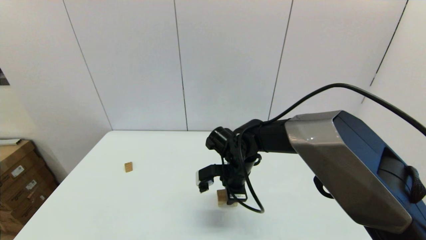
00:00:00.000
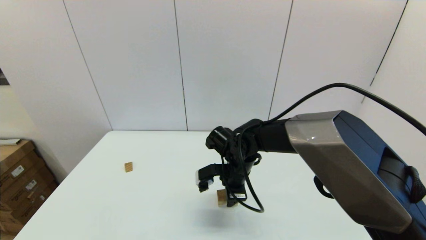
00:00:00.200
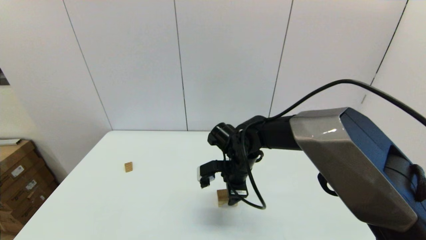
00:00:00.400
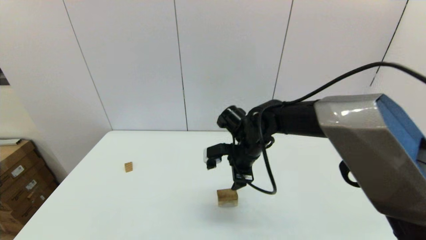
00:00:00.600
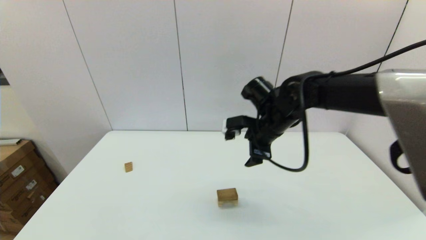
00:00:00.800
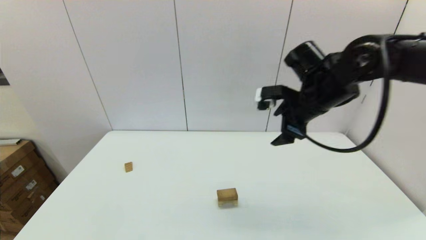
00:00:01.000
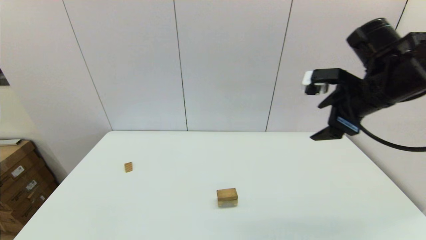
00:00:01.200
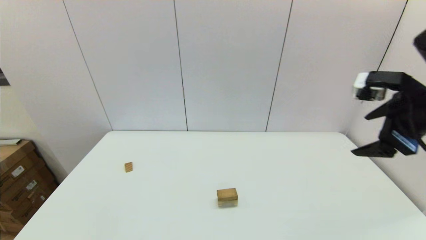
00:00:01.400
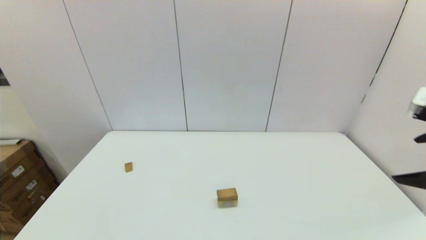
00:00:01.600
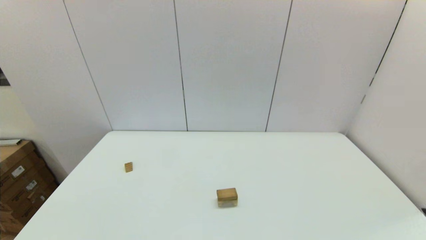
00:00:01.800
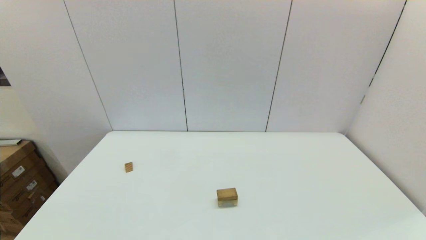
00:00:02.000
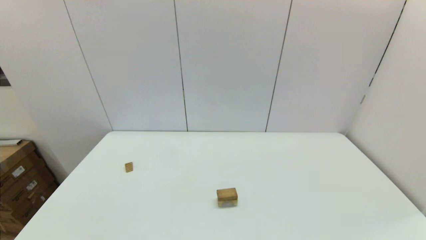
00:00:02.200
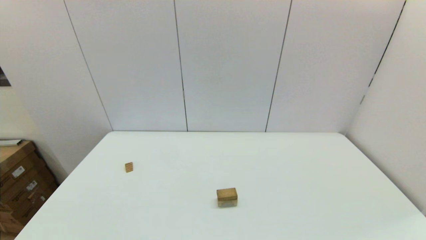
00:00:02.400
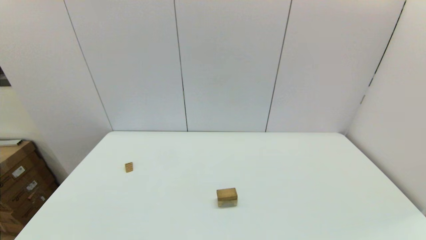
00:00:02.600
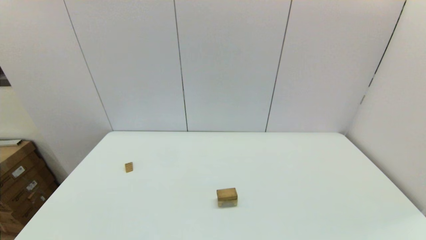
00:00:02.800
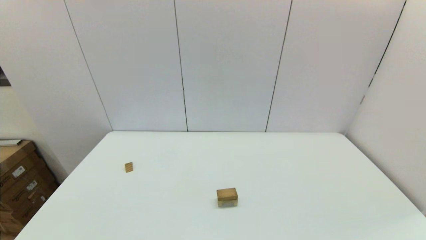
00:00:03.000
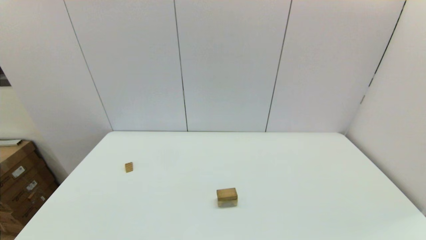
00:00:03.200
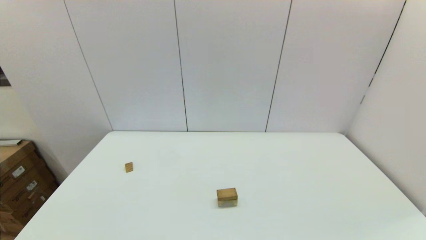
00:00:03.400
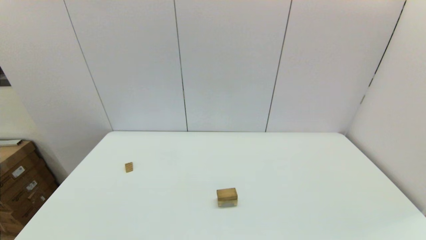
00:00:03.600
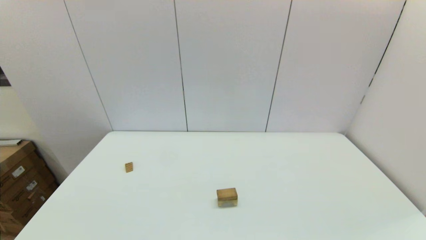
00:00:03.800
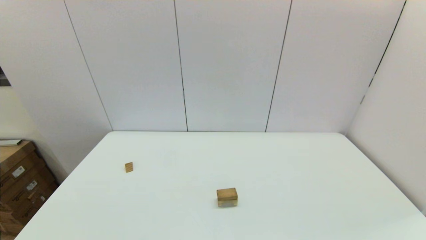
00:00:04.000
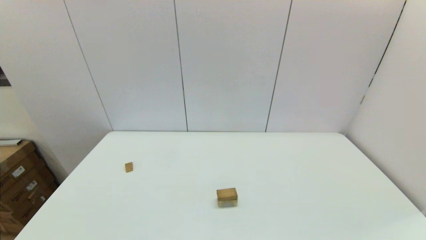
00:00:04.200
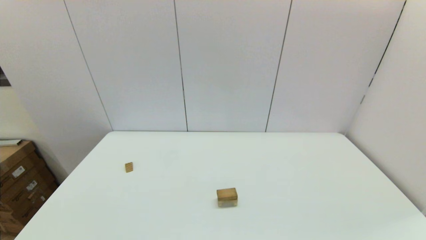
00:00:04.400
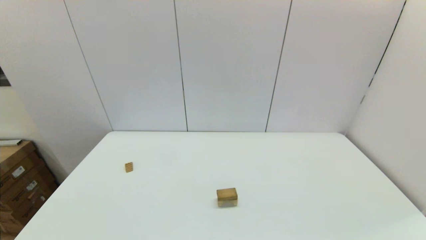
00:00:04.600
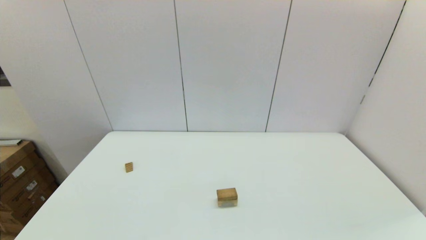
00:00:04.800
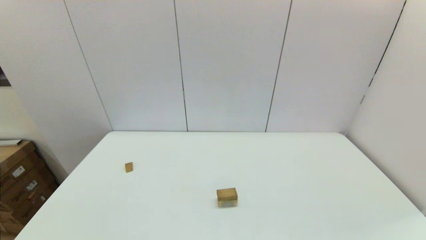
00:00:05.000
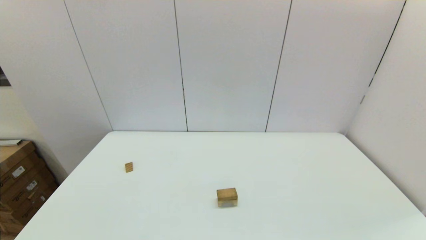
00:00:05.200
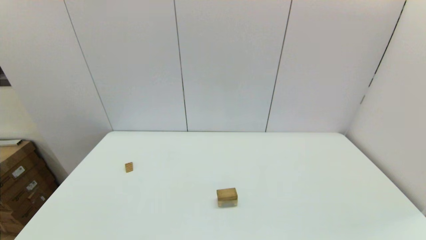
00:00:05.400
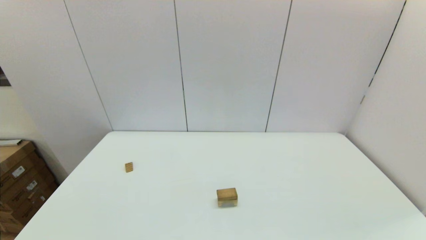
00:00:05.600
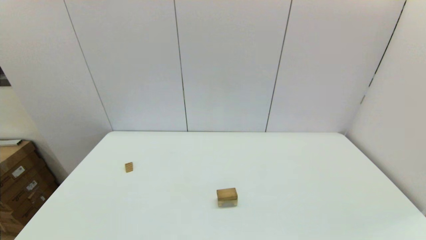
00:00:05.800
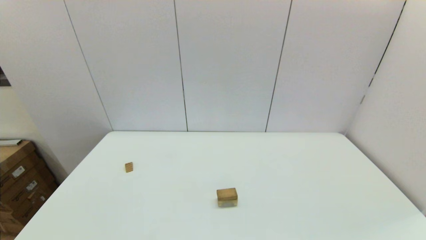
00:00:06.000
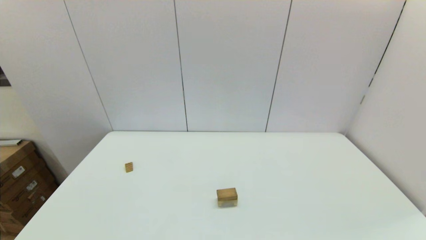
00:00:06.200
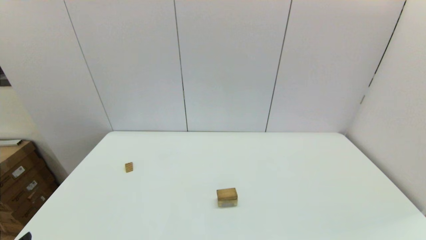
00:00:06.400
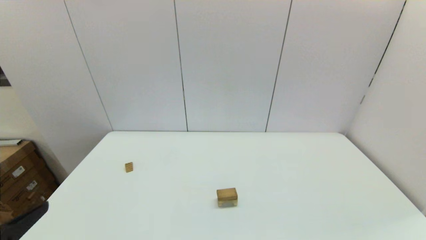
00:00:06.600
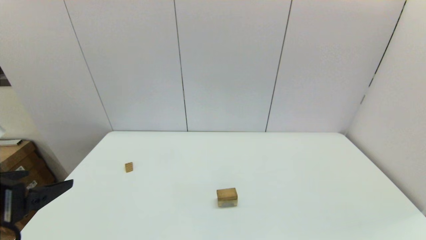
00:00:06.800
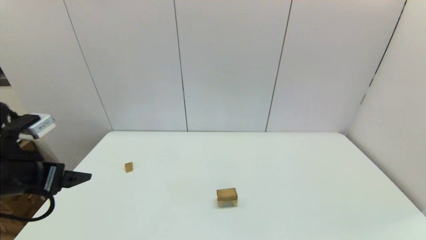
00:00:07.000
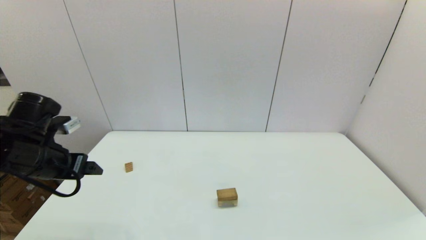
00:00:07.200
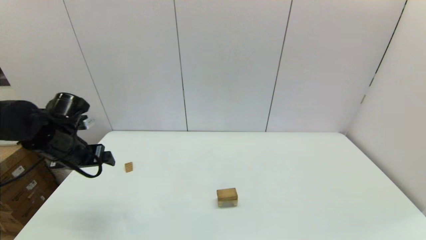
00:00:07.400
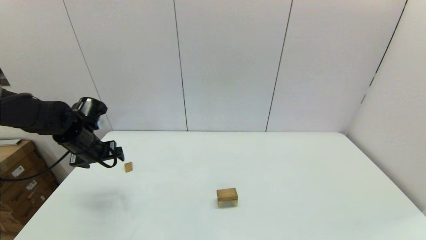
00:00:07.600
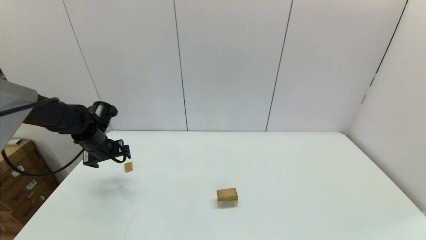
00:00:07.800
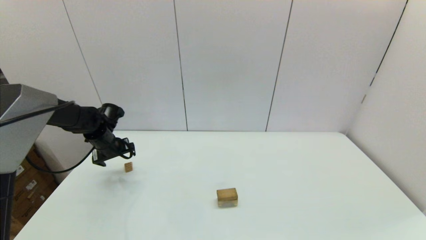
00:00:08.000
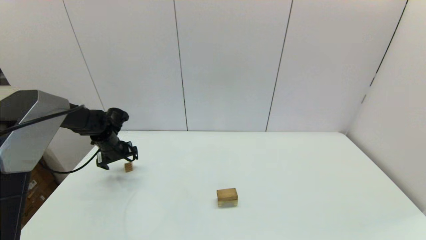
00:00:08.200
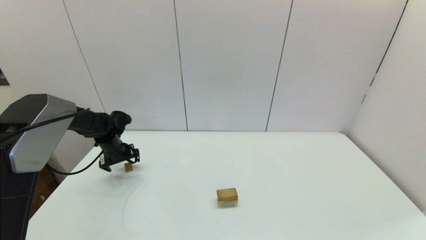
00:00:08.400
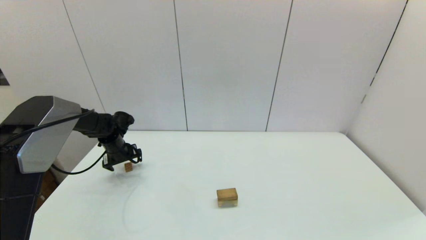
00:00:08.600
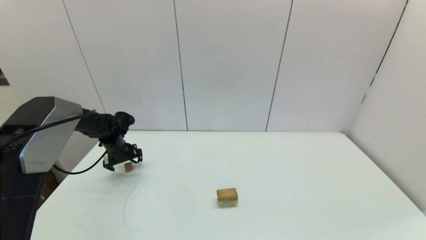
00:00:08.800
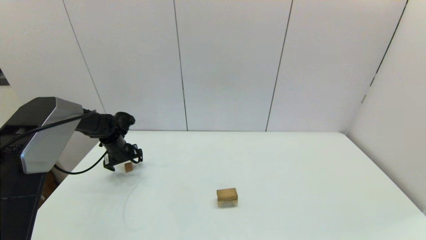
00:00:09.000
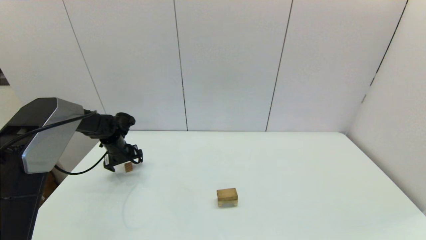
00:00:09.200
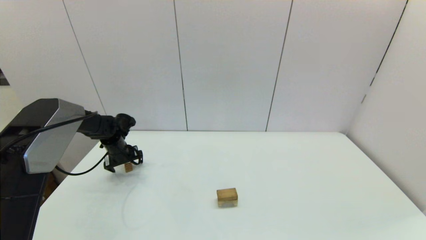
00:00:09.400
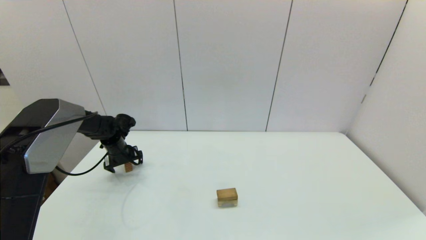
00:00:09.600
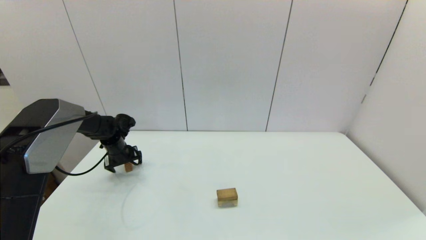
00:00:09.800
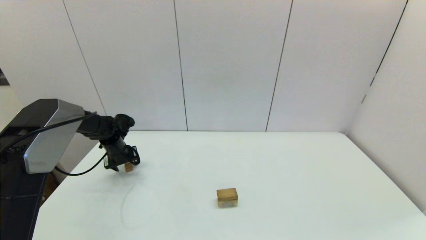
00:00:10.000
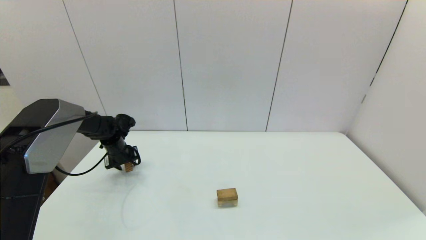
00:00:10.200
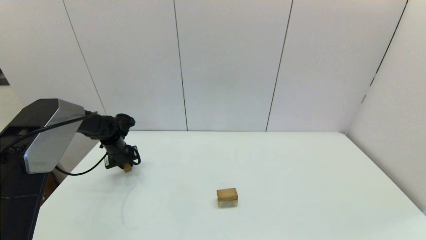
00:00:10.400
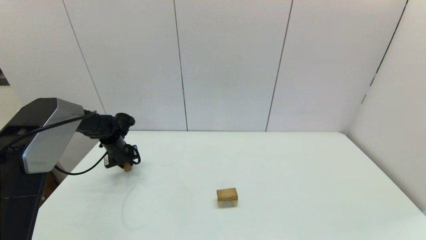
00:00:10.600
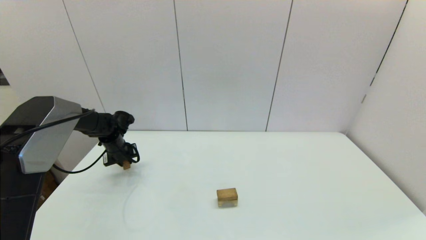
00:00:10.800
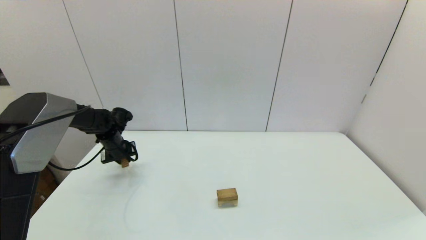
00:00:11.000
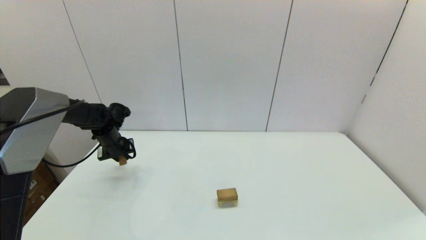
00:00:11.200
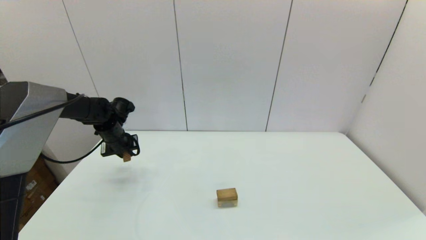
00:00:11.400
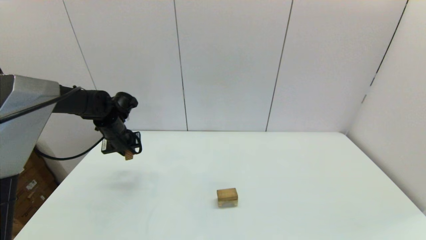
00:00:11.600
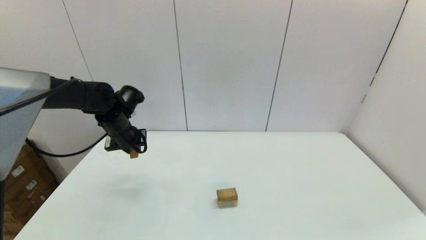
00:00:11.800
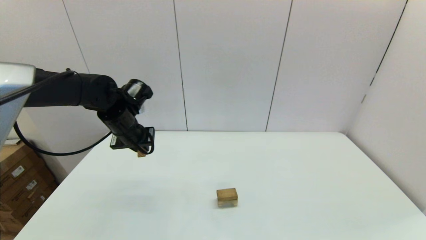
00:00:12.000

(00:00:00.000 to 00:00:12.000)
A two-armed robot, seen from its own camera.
Task of the whole recording: place the arched building blocks in the center of the table, set up the rectangular building blocks, and then set up the triangular building blocks.
Step, 00:00:00.400 - 00:00:10.400: Grasp the triangle-shaped block with the left gripper.
00:00:00.000 - 00:00:01.600: The right gripper goes some 40 cm to the right, upward and backward, and opens.
00:00:01.600 - 00:00:03.000: The right gripper shifts roughly 25 cm downward and backward.
00:00:06.000 - 00:00:07.600: The left gripper shifts some 40 cm forward.
00:00:07.600 - 00:00:09.000: The left gripper travels forward and downward by roughly 10 cm.
00:00:09.000 - 00:00:10.400: The left gripper closes its fingers.
00:00:10.400 - 00:00:12.000: The left gripper shifts about 20 cm upward, to the right and backward.

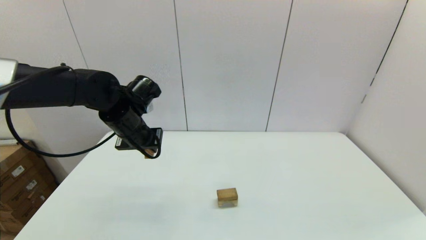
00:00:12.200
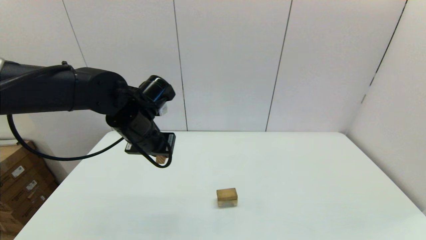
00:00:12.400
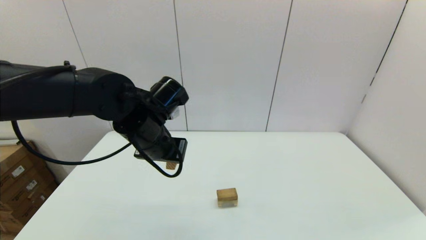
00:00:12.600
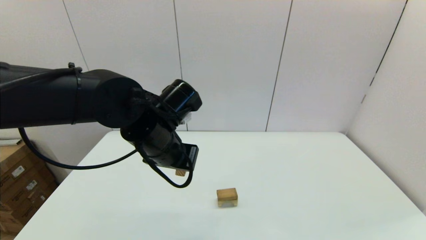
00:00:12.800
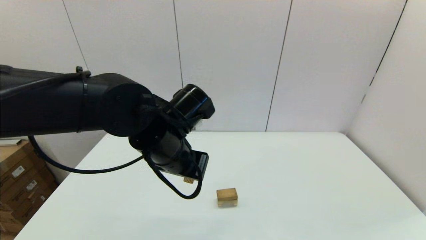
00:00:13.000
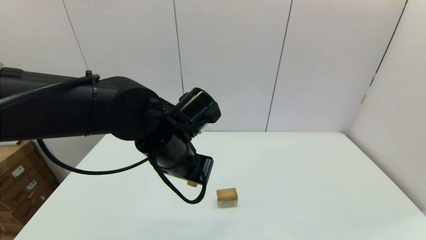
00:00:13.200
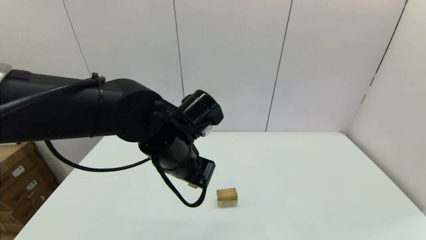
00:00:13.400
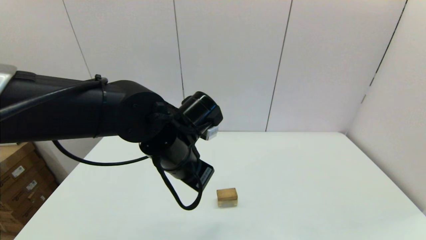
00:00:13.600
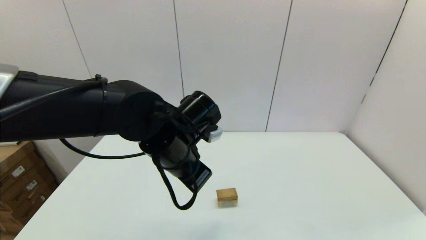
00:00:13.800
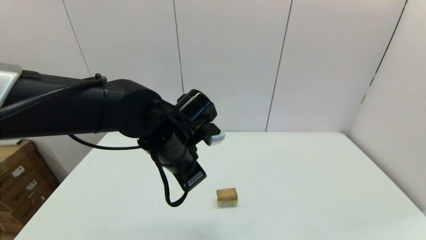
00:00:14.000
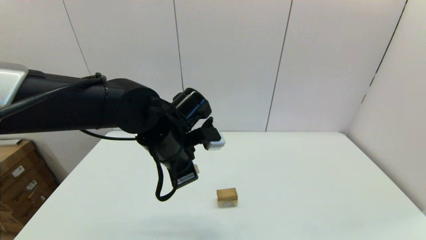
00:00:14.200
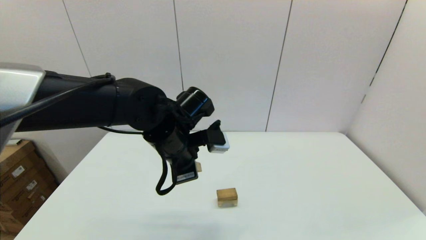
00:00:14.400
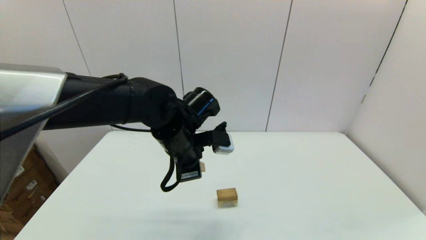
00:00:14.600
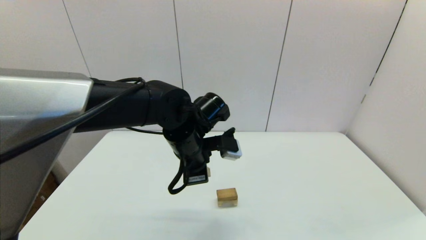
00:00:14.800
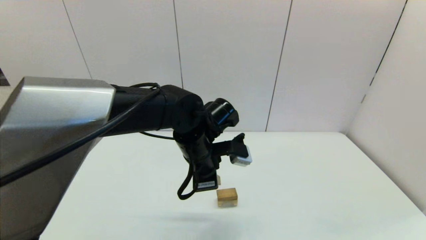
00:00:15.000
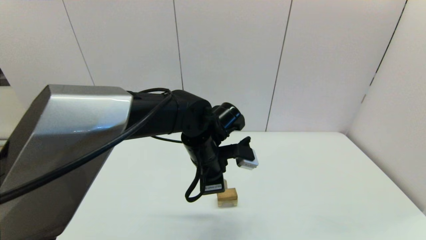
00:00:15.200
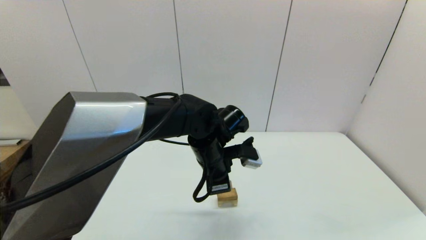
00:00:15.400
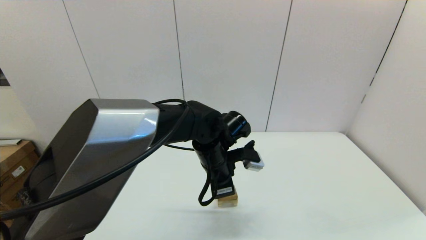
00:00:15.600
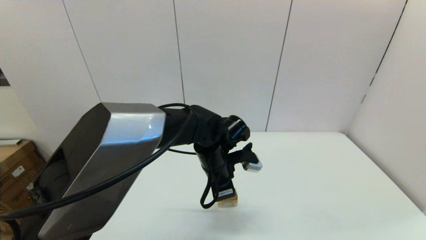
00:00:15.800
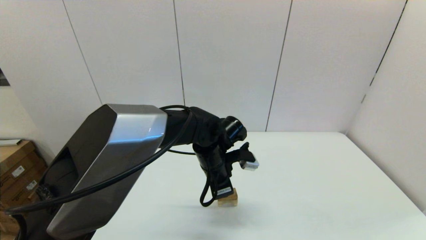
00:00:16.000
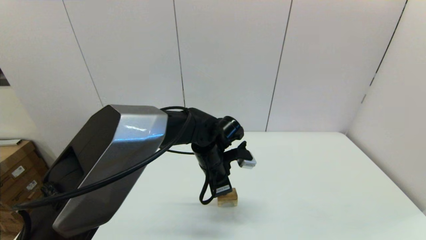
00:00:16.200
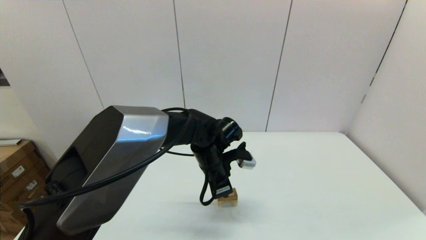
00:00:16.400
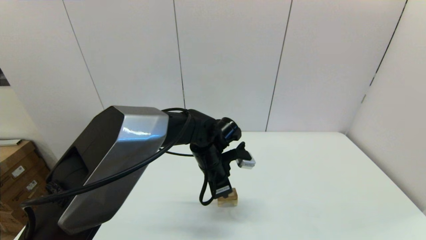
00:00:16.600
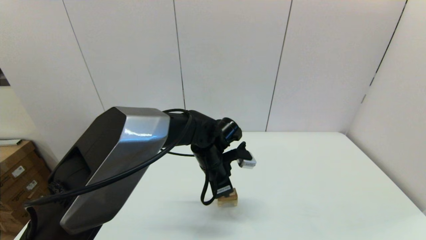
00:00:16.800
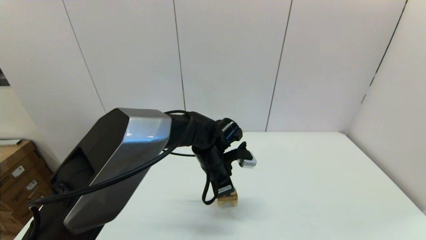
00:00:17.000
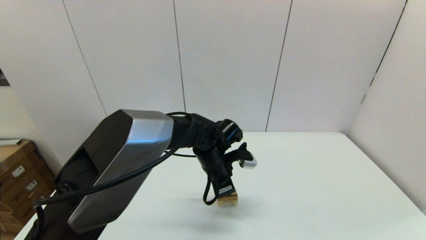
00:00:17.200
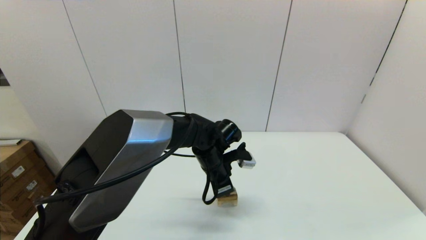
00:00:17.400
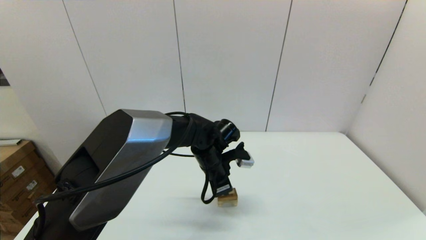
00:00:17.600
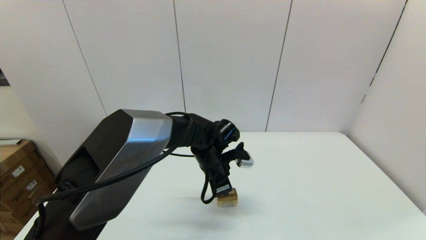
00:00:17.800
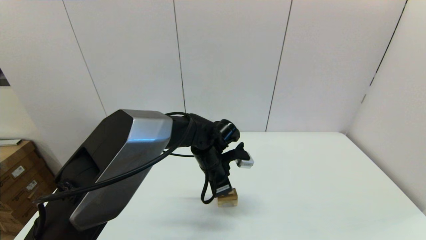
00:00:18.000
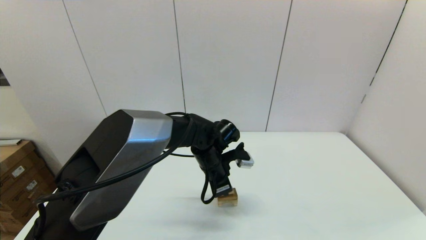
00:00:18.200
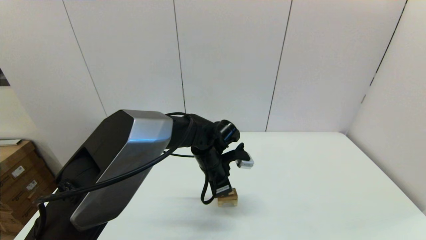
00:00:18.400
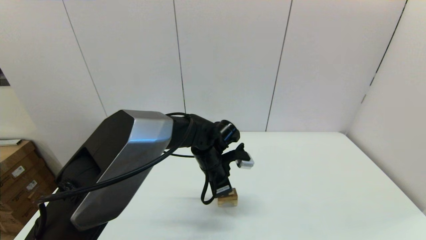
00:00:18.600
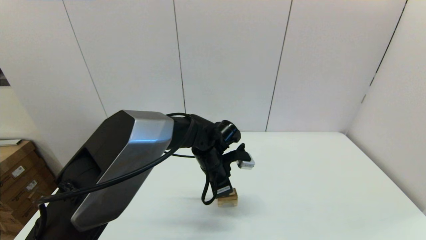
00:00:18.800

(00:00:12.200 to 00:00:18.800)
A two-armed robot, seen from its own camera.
Task of the whole recording: place the arched building blocks in the center of the table, set up the rectangular building blocks, and then set up the triangular building blocks.
00:00:12.200 - 00:00:13.800: The left gripper heads to the right and backward, covering some 15 cm.
00:00:13.800 - 00:00:15.400: The left gripper travels to the right and downward by about 10 cm.
00:00:15.400 - 00:00:17.200: The left gripper heads downward, covering some 5 cm.
00:00:17.200 - 00:00:18.800: Both grippers stay put.
